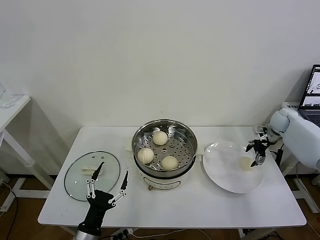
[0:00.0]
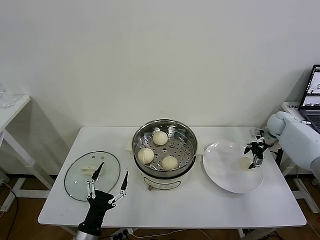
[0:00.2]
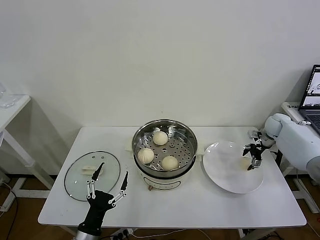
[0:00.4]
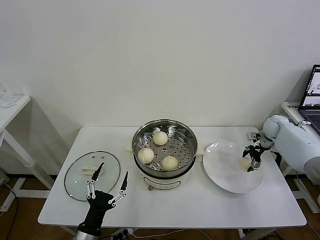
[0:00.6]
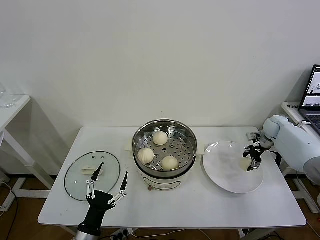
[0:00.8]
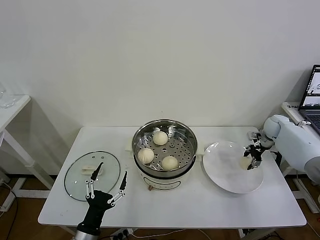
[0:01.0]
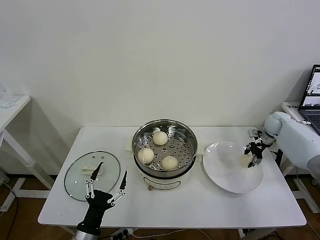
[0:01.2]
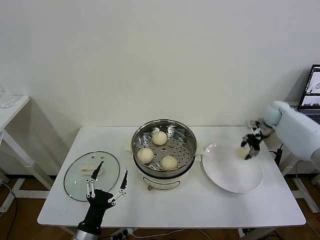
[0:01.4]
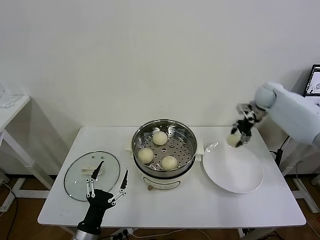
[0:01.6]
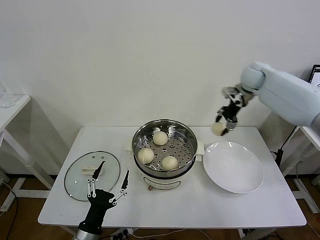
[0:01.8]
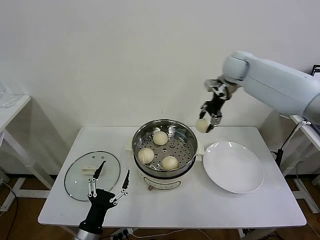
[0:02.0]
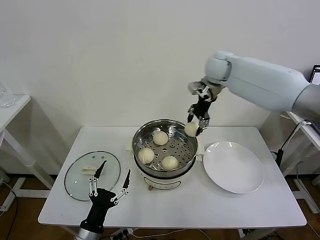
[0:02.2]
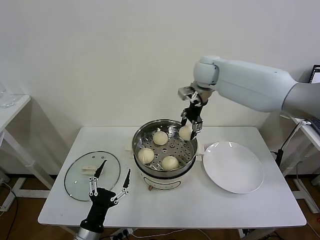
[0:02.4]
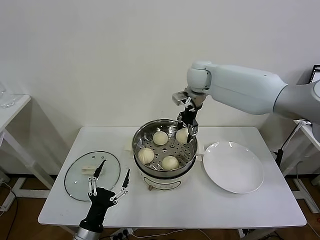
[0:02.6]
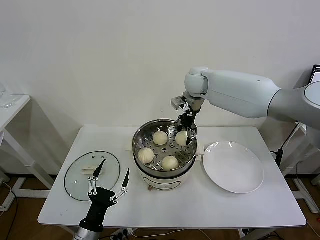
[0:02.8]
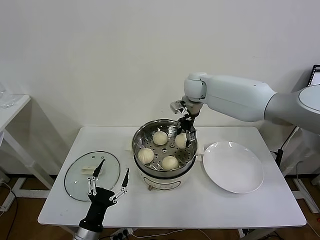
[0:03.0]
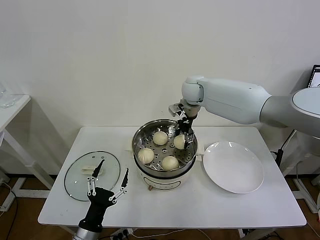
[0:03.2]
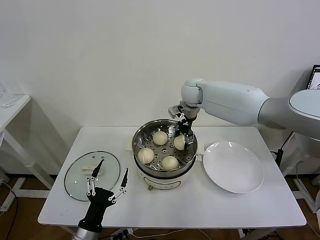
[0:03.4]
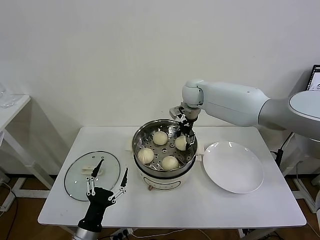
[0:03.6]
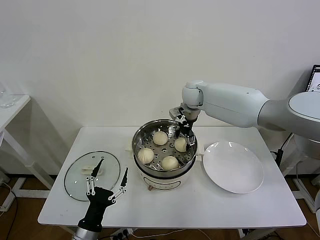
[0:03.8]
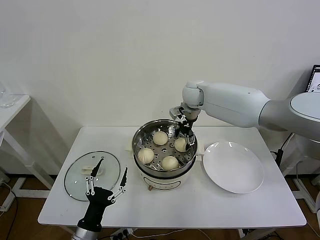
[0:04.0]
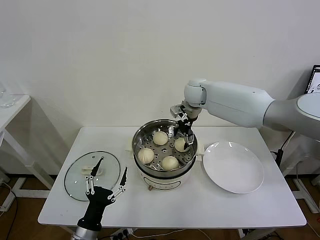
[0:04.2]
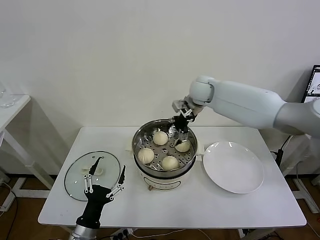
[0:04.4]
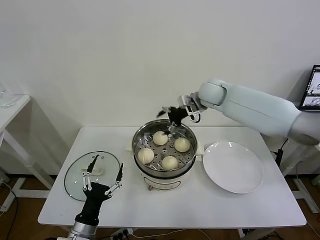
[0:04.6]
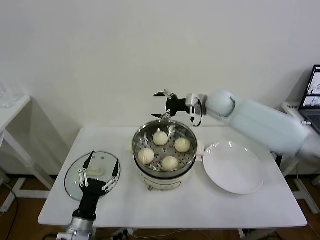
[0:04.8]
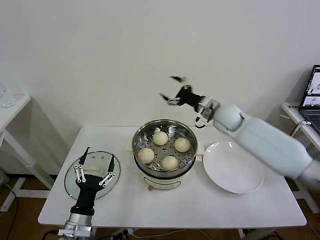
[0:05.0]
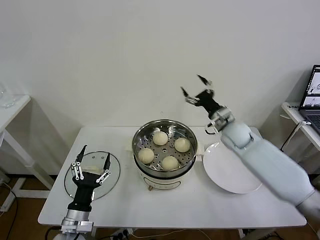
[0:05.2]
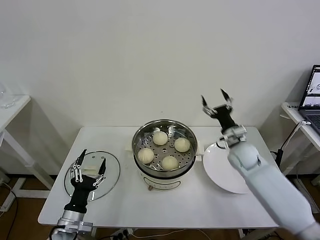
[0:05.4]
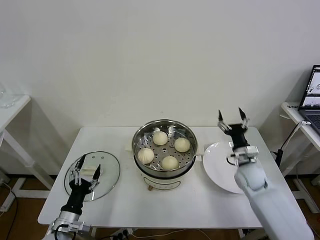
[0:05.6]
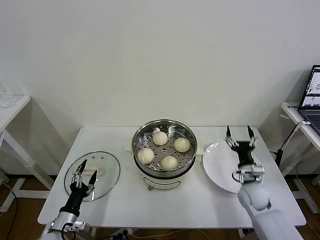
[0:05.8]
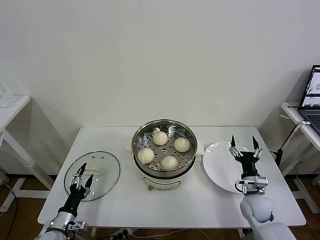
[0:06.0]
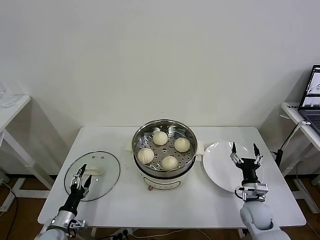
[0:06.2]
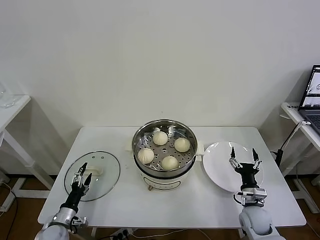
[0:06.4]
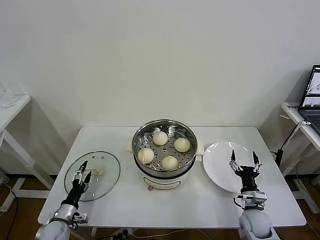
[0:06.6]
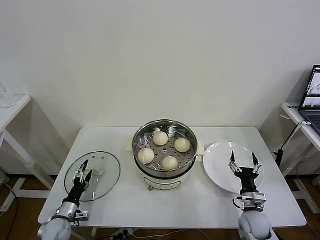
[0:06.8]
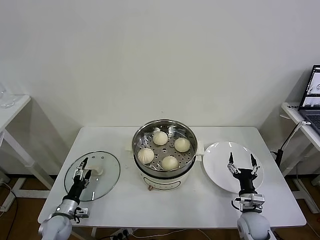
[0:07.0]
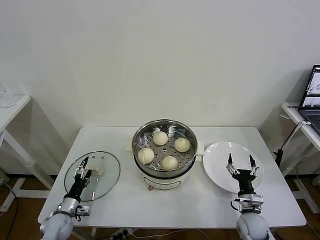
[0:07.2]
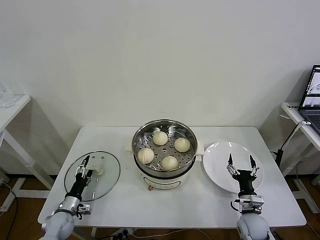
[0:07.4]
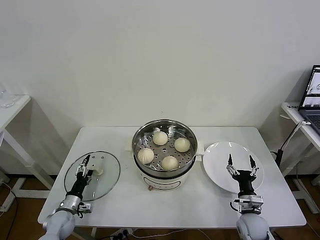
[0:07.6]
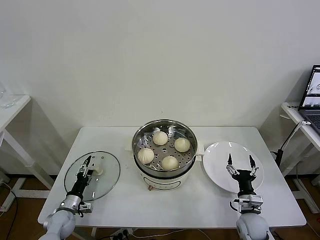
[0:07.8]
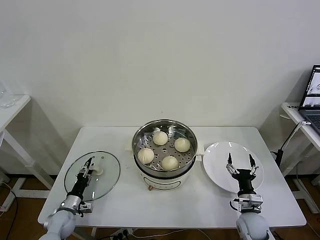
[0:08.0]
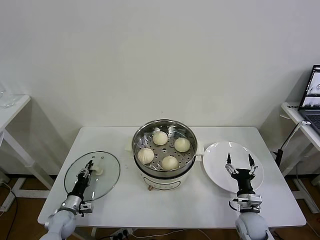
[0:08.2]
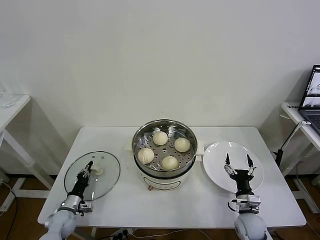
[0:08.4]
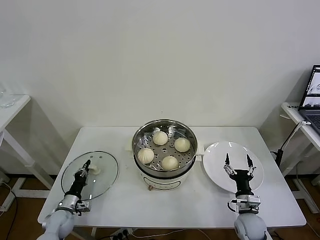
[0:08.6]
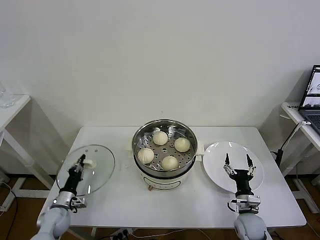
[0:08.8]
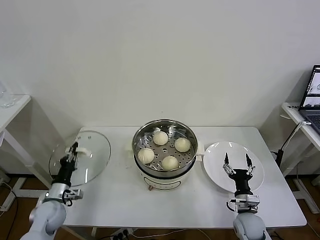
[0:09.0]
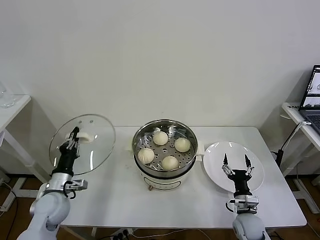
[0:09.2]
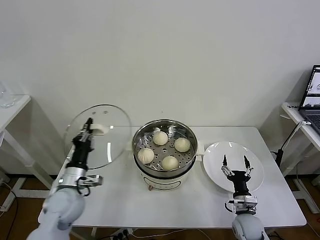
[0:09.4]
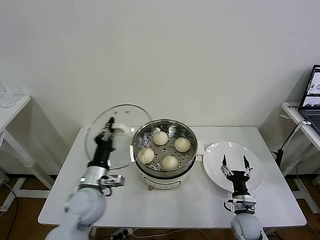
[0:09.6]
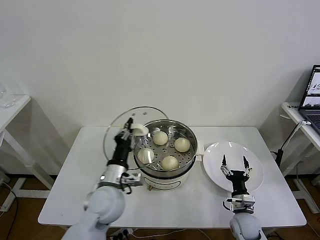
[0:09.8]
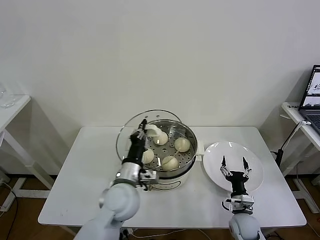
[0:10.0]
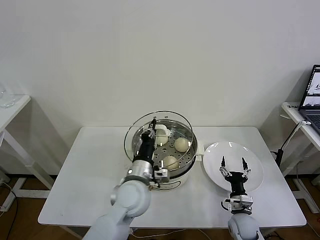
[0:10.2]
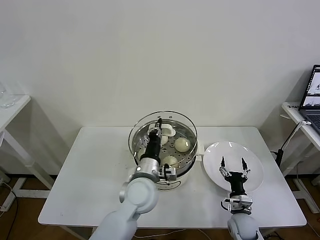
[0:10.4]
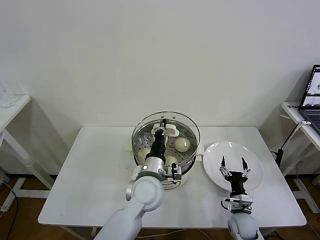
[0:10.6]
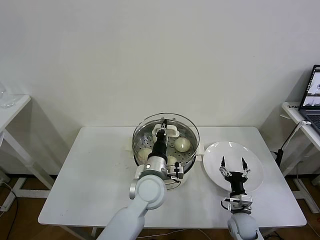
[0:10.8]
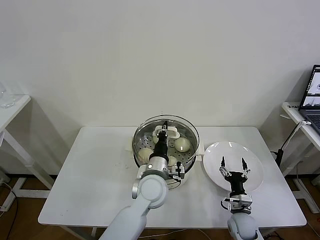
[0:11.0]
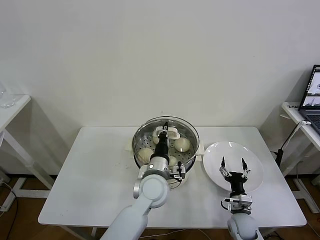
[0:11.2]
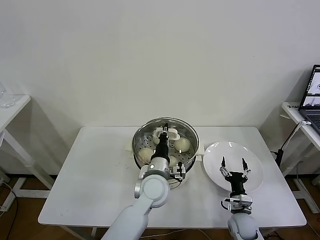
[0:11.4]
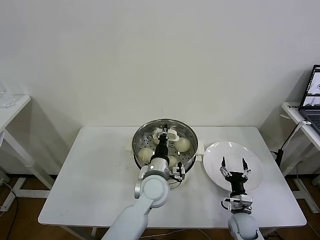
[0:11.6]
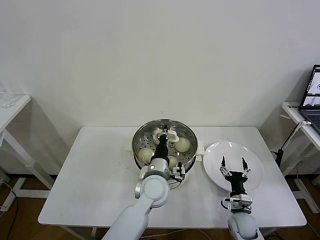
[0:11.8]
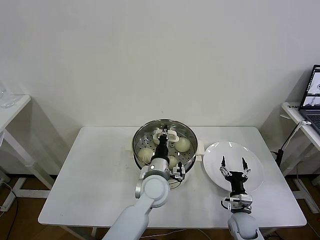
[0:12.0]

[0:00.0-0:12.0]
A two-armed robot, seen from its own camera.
Task of the whole recording: take steamed baozi put them in steamer then cover it.
Step, 0:01.2 to 0:04.0: Place the baozi on the steamer with right gripper.
Step, 0:04.2 to 0:08.4: Grasp the pot lid with left gripper.
0:00.0 to 0:01.6: The right gripper shifts some 15 cm upward and to the left, and closes up.
0:01.6 to 0:03.0: The right gripper shifts some 25 cm to the left.
0:03.0 to 0:04.4: The right gripper opens.
0:04.4 to 0:06.0: The left gripper shifts about 15 cm to the left, downward and forward. Meanwhile the right gripper moves downward, backward and to the right, roughly 50 cm.
0:06.0 to 0:07.6: The right gripper moves roughly 5 cm. Meanwhile the left gripper shifts roughly 10 cm forward and downward.
0:07.6 to 0:09.0: The left gripper goes some 5 cm upward, and closes up.
0:09.0 to 0:10.4: The left gripper is displaced to the right and upward by approximately 35 cm.
0:10.4 to 0:12.0: The left gripper ends up approximately 5 cm from where it was.

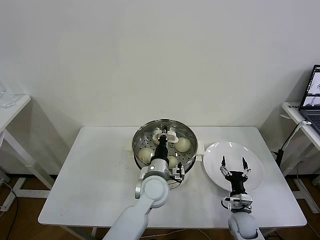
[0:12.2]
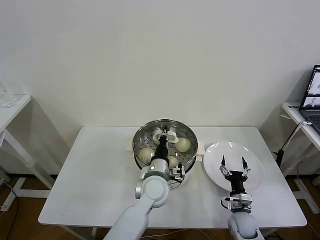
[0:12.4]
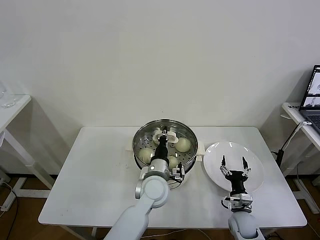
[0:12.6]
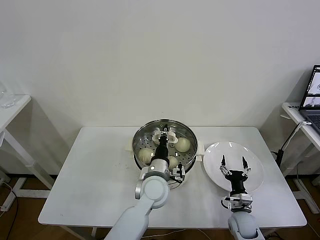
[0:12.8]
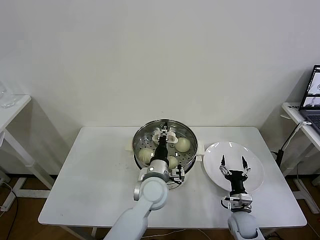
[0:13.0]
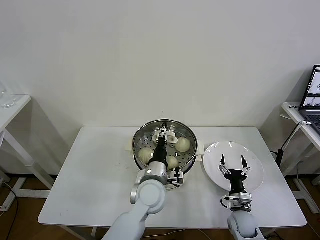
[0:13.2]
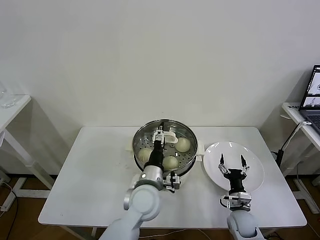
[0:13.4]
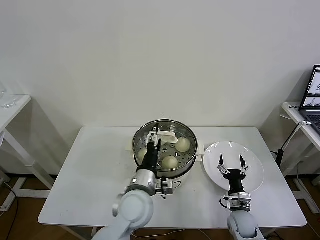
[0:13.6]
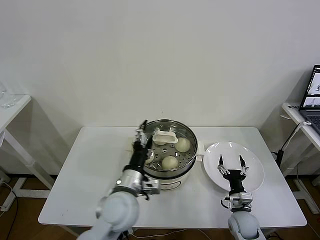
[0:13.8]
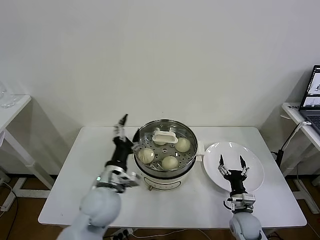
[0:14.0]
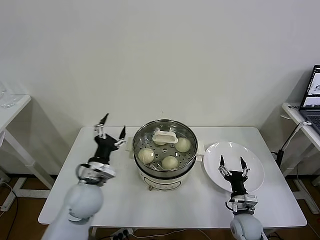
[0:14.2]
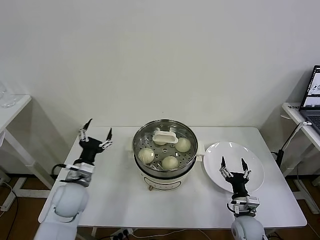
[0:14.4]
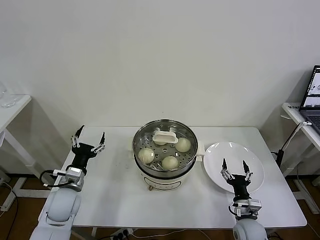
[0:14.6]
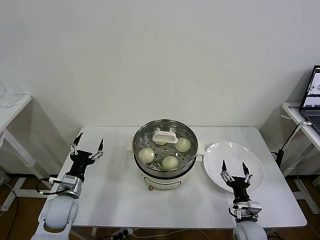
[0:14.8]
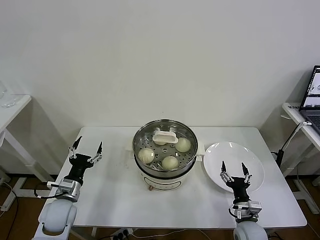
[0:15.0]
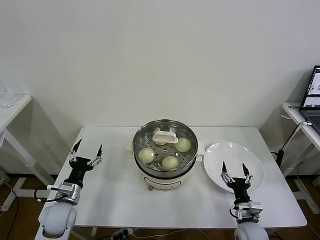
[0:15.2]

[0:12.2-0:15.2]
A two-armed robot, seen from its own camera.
Task of the whole recording: take steamed baozi put them in steamer then cover it.
0:12.2 to 0:13.8: The left gripper travels to the left and backward by about 10 cm, and opens its fingers.
0:13.8 to 0:15.2: The left gripper moves to the left and downward, some 25 cm.
